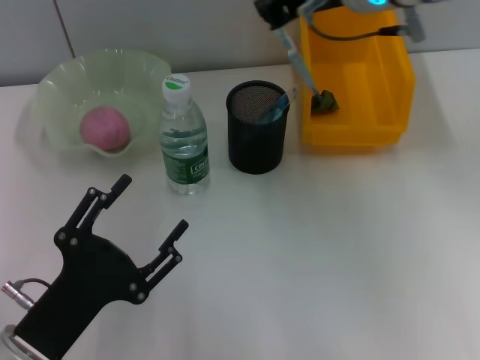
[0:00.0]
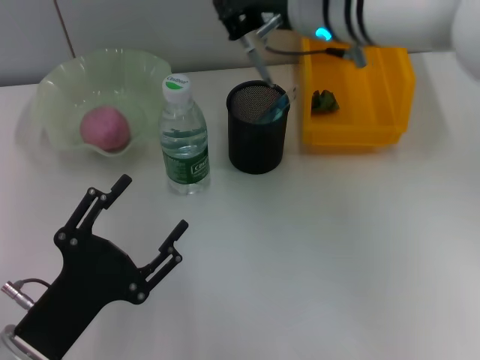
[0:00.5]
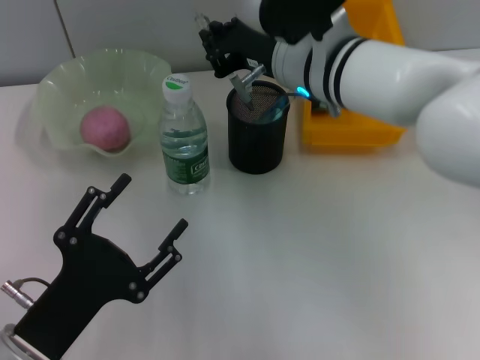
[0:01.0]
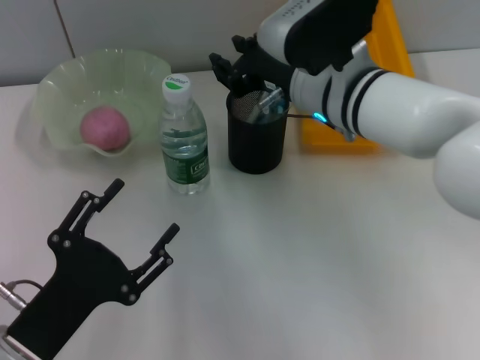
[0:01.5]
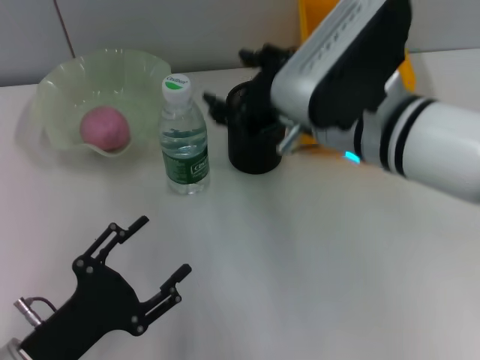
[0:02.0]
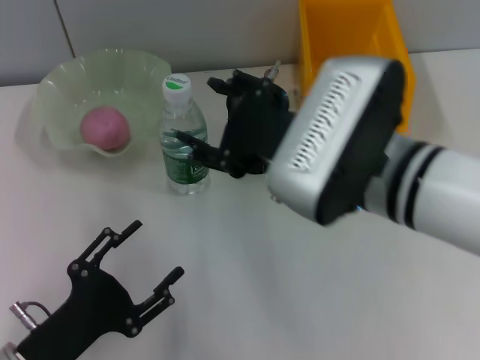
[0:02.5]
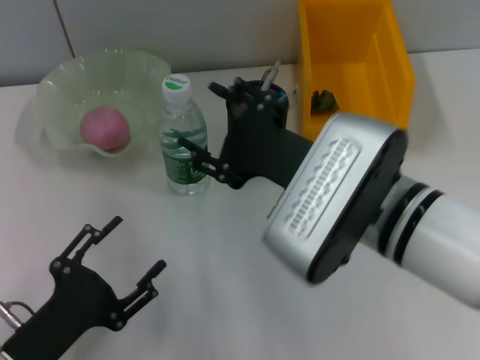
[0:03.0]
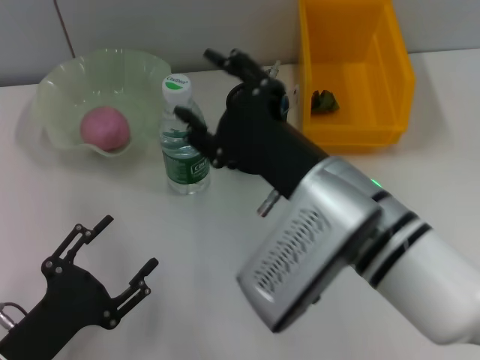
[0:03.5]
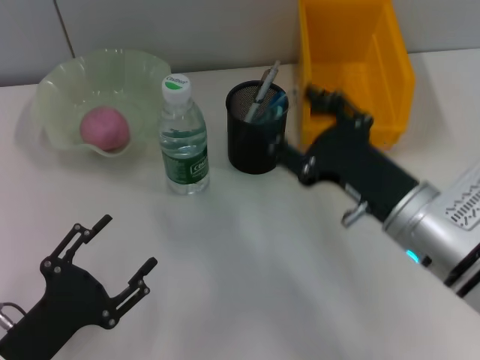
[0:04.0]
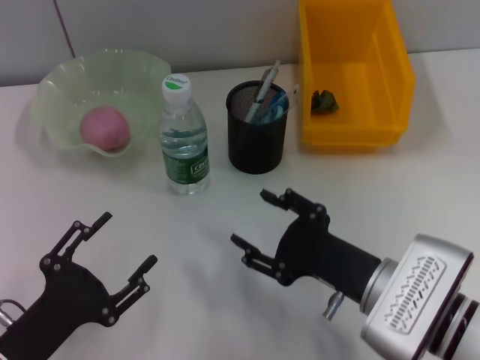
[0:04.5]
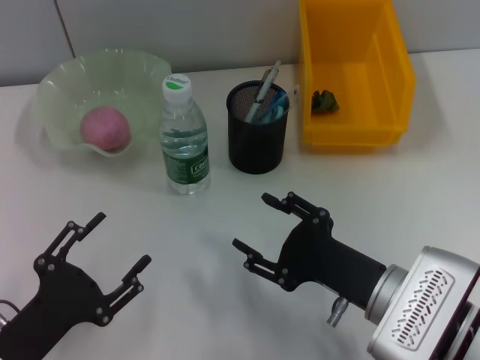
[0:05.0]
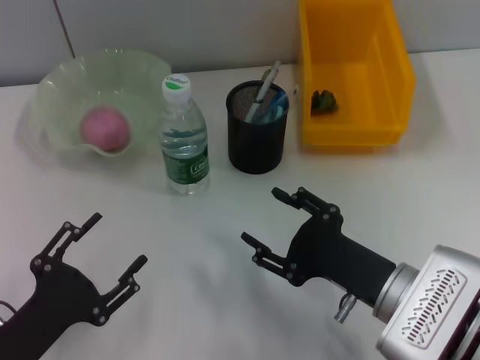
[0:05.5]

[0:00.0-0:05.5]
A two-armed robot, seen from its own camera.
0:00.0 to 0:02.0: The right gripper moves downward and backward, roughly 10 cm, and opens up.
0:02.0 to 0:03.5: The right gripper shifts approximately 5 cm backward.
0:03.5 to 0:05.5: The right gripper travels downward and to the right by approximately 15 cm.

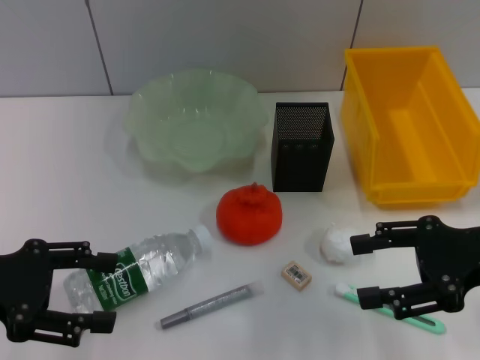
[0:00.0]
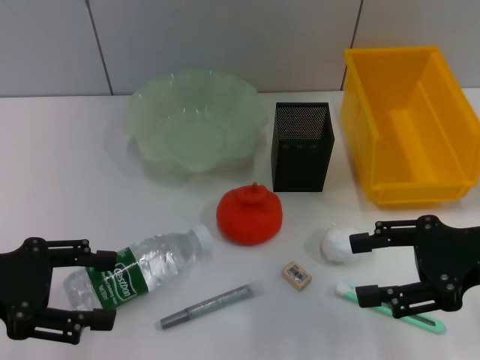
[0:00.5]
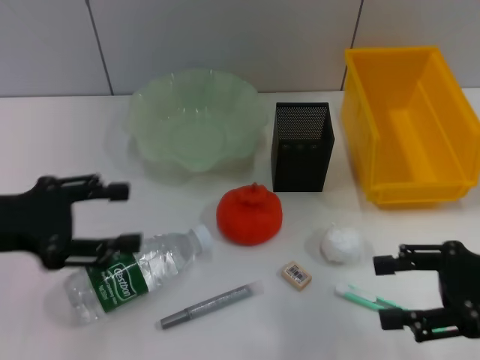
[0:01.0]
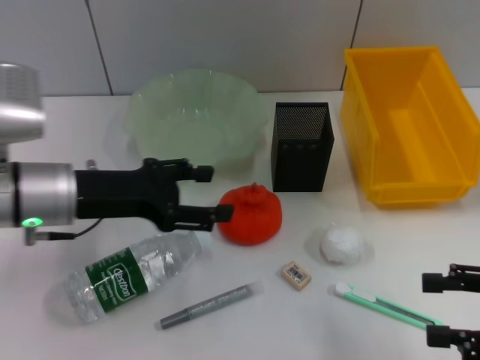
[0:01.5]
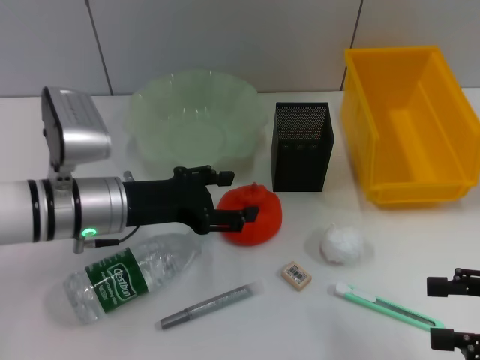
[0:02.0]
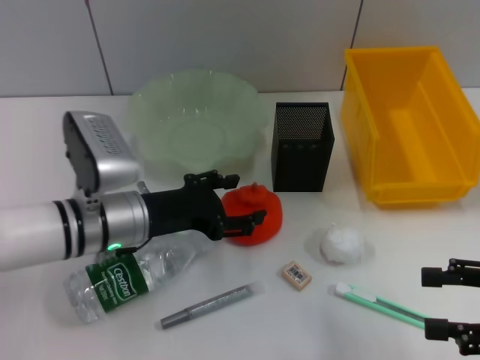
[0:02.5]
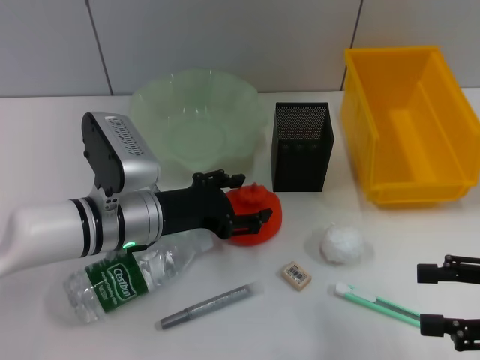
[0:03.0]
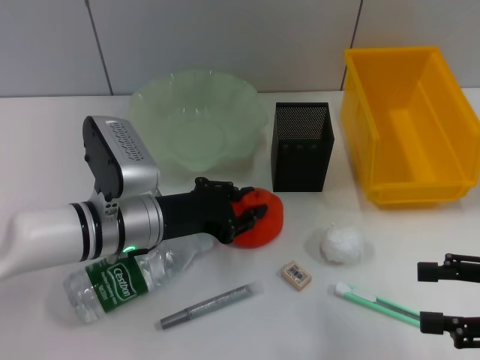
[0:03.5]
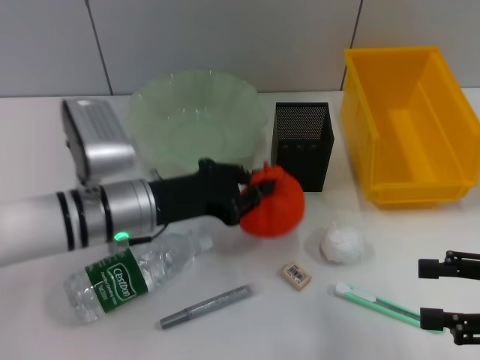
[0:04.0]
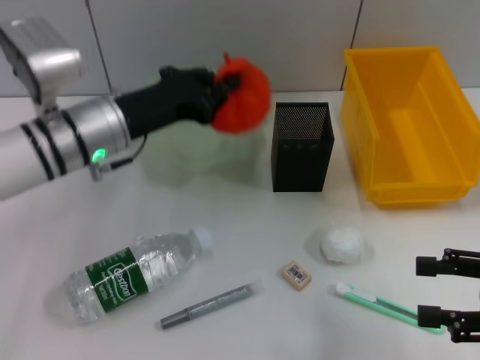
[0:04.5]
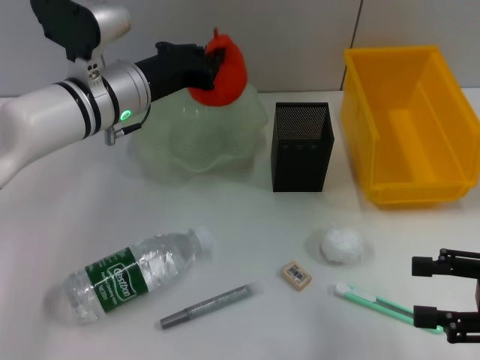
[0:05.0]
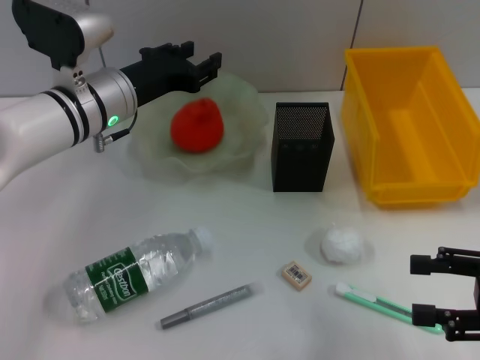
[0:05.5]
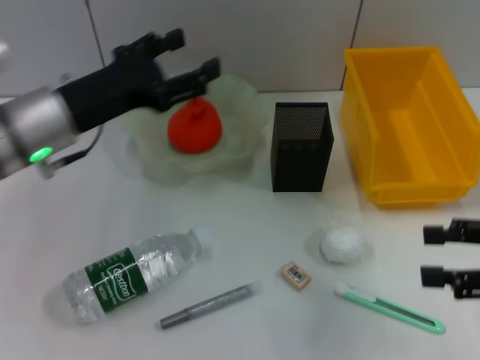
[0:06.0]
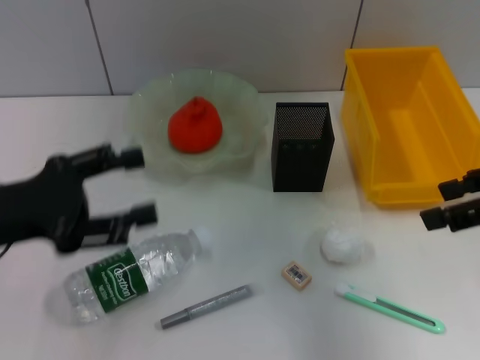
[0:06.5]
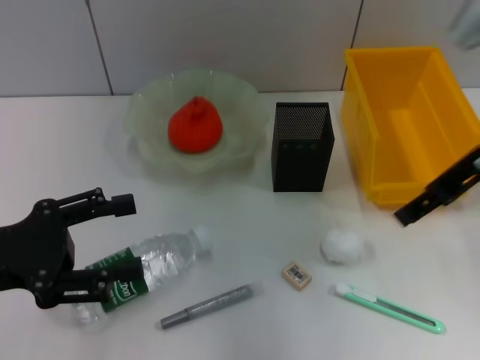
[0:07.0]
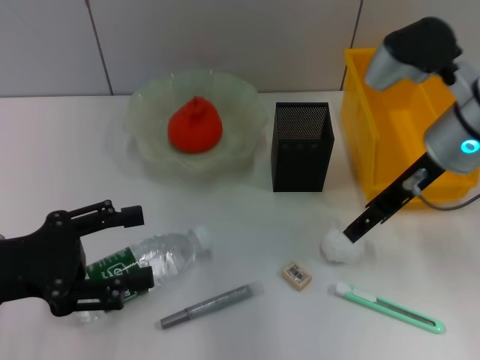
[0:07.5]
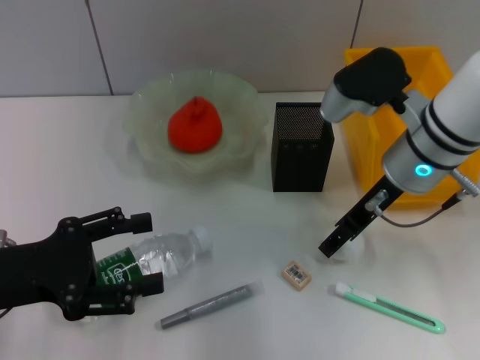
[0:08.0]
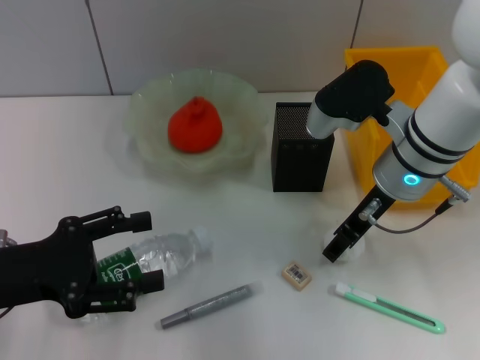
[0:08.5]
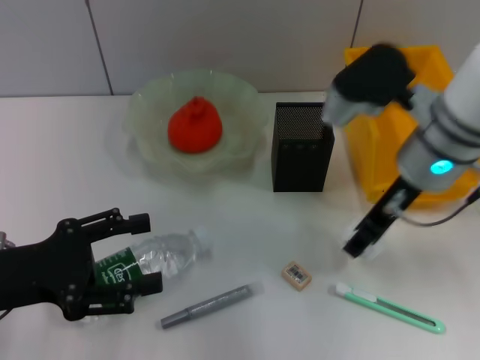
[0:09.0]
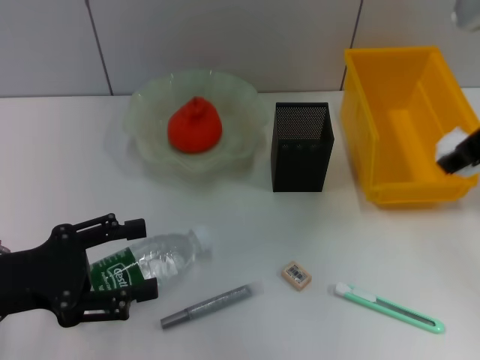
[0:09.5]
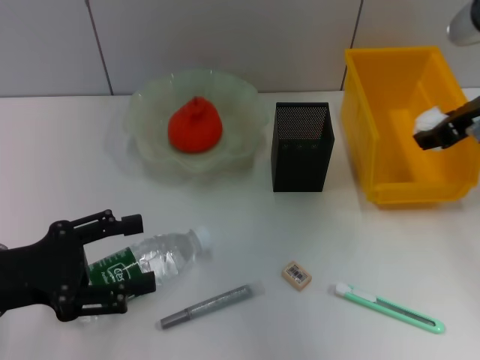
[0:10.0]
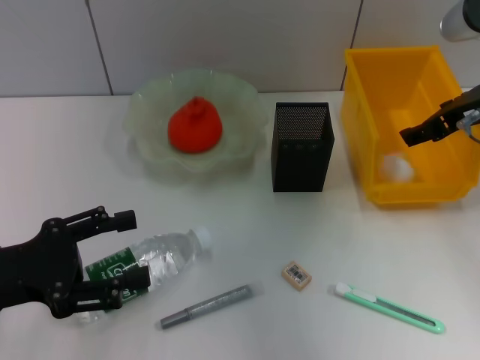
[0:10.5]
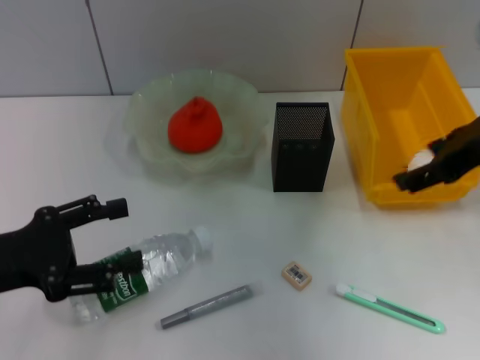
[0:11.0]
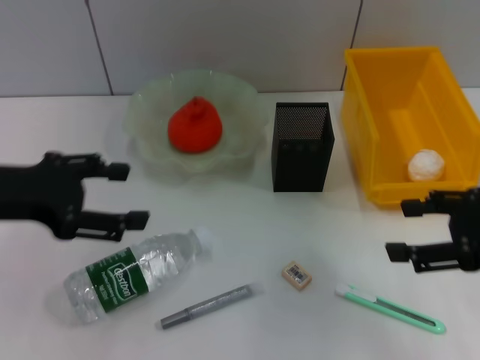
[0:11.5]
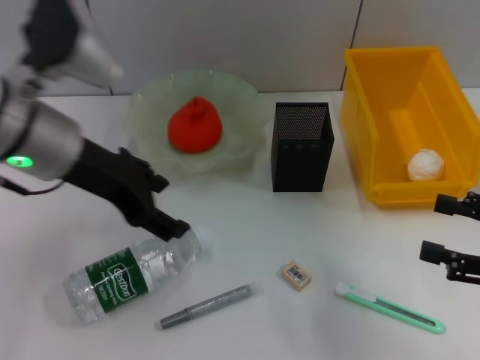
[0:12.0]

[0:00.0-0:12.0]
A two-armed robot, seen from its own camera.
Step, 0:00.0 to 0:03.5: Grab the orange with the left hand.
Step, 0:04.0 to 0:05.5: Place the orange into the fruit bowl with the left hand.
Step, 0:06.0 to 0:08.5: Grab the paper ball with the right hand.
Step, 0:09.0 to 0:10.5: Place the paper ball into the trash can with the right hand.
0:00.0 to 0:02.0: The left gripper travels to the right, forward and downward by about 15 cm. The right gripper travels backward and to the right by roughly 10 cm.
0:02.0 to 0:04.0: The left gripper closes its fingers.
0:04.0 to 0:06.0: The left gripper shifts approximately 10 cm upward and to the left, goes forward and returns, roughly 10 cm each way, and opens.
0:06.0 to 0:08.0: The left gripper is displaced backward and to the left by some 15 cm, while the right gripper heads to the left and forward, covering about 20 cm.
0:08.0 to 0:10.0: The right gripper moves to the right and upward, about 10 cm.
0:10.0 to 0:12.0: The left gripper travels to the right, forward and upward by roughly 20 cm; the right gripper shifts about 20 cm backward, to the right and downward, and opens its fingers.

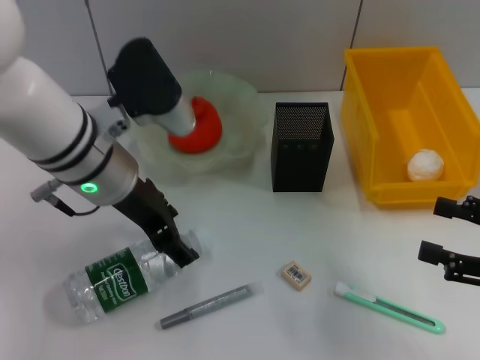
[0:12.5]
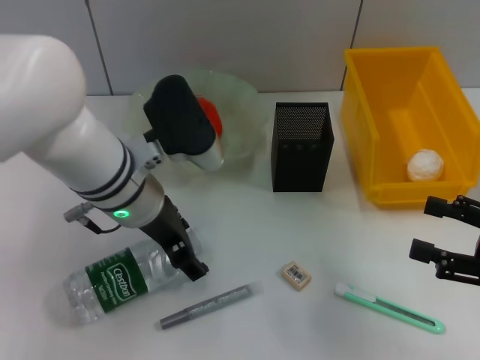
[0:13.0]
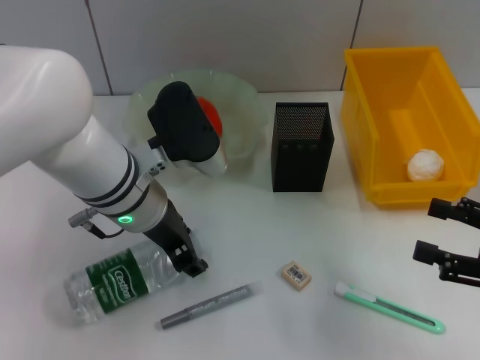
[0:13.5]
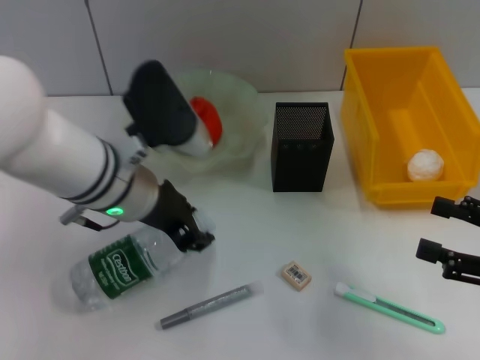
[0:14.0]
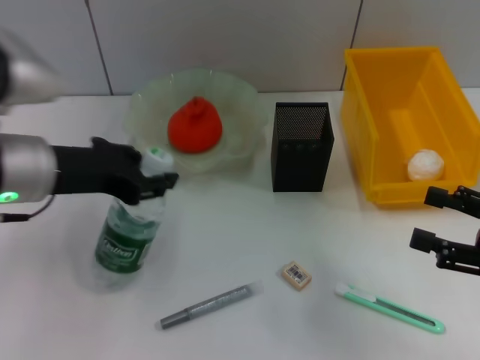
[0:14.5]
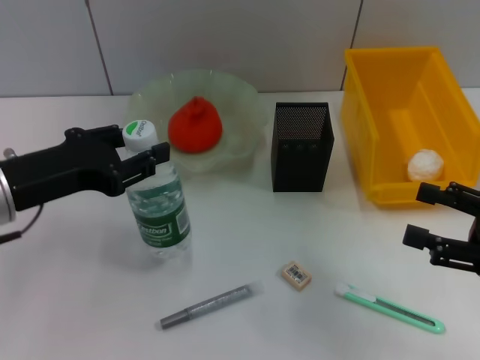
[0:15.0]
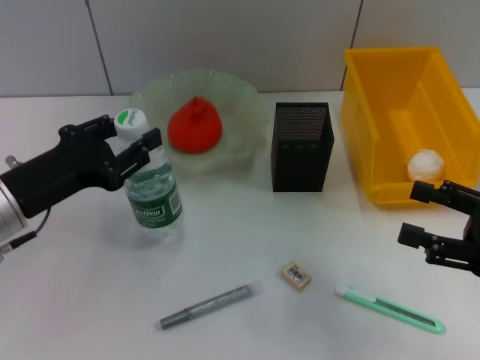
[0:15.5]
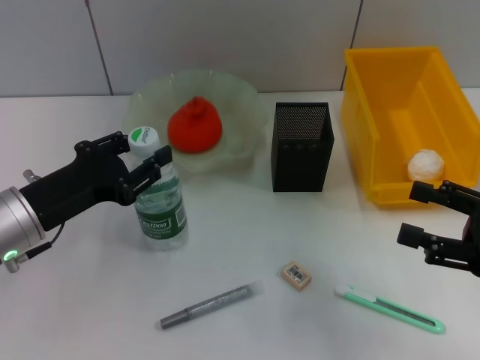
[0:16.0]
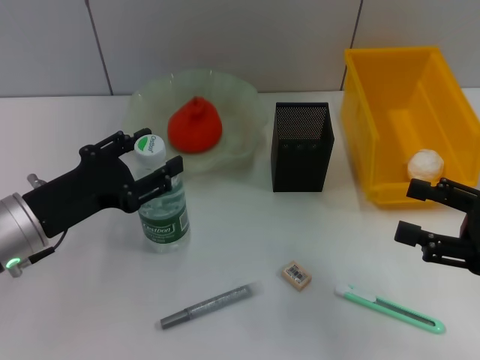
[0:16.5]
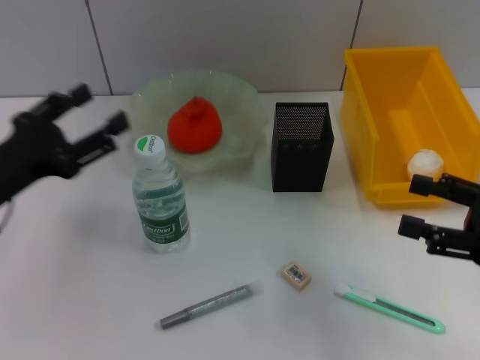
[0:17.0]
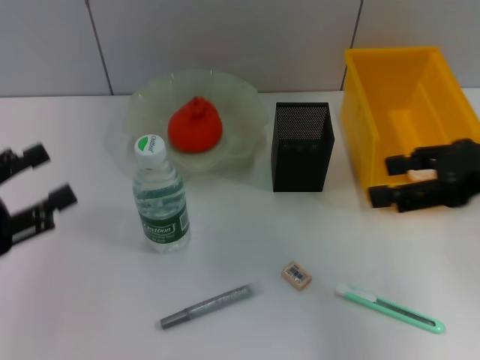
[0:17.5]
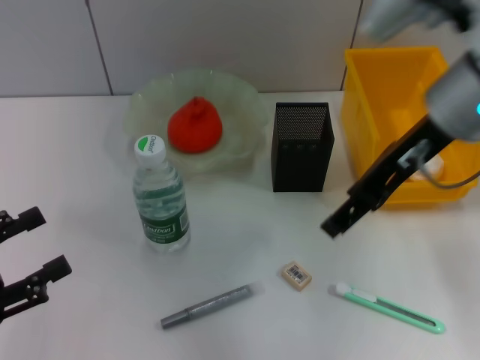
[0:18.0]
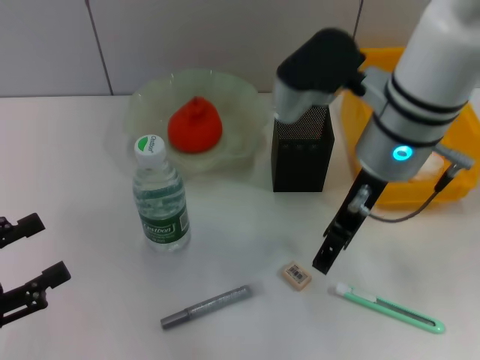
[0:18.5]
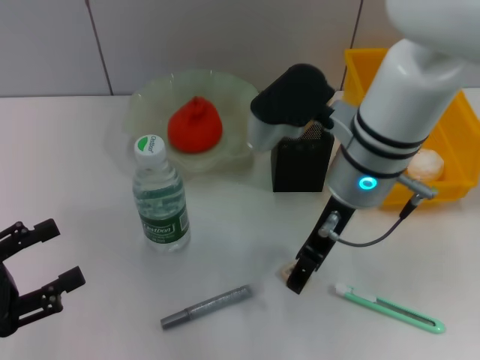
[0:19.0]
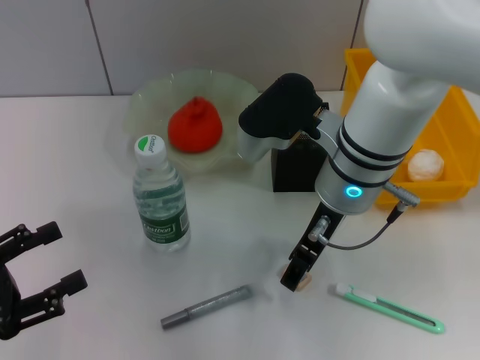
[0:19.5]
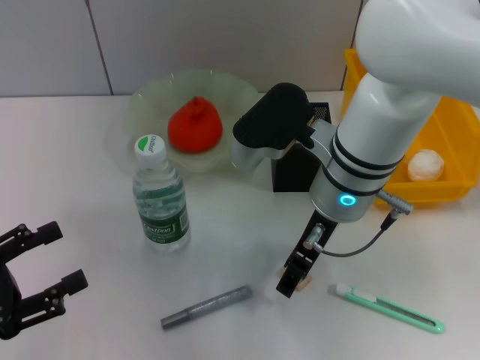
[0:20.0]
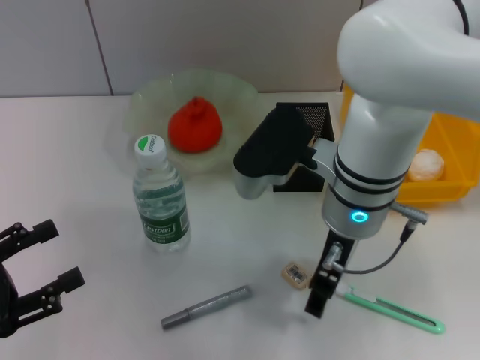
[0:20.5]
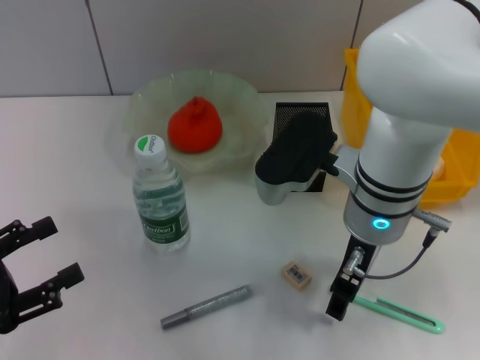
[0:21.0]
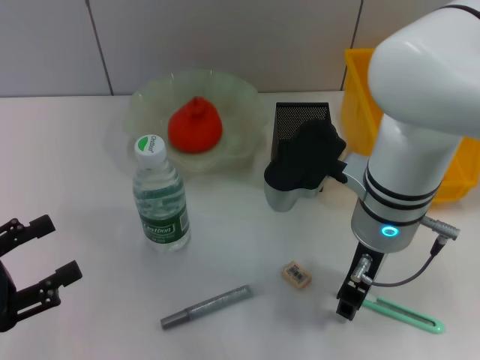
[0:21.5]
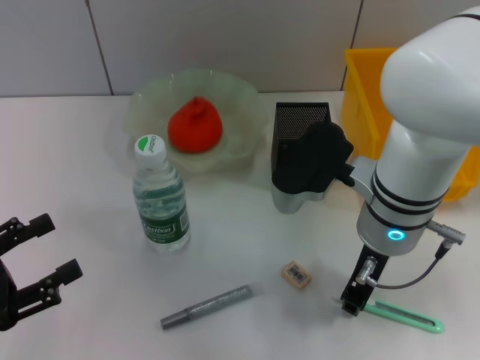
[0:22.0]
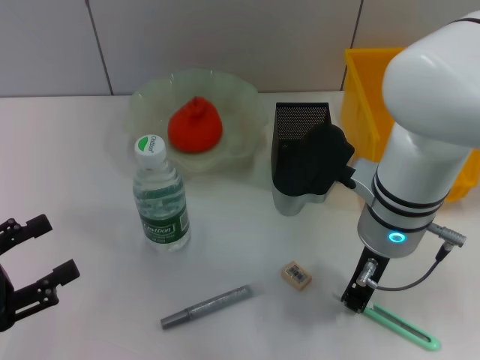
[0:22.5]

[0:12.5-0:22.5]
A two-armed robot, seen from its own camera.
Step, 0:14.0 to 0:16.5: Place the water bottle on the table with the left hand.
Step, 0:17.0 to 0:22.0: Grab the blue utility knife with the right hand.
0:12.5 to 0:14.5: The left gripper goes roughly 10 cm to the left, and closes up.
0:14.5 to 0:16.5: The left gripper travels downward by approximately 10 cm.
0:16.5 to 0:18.5: The left gripper is displaced backward and to the left by approximately 15 cm, and opens up. The right gripper shifts about 25 cm to the left, forward and upward.
0:18.5 to 0:20.5: The right gripper is displaced downward by approximately 5 cm.
0:20.5 to 0:22.5: The right gripper closes up.
